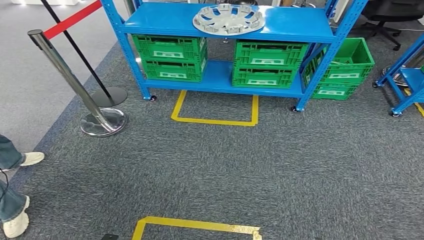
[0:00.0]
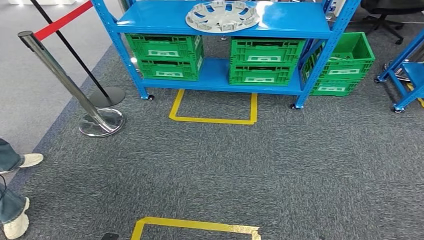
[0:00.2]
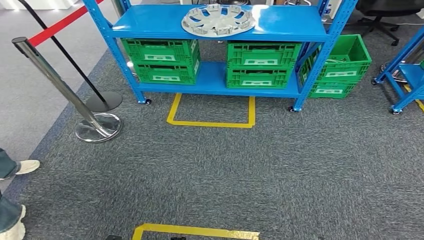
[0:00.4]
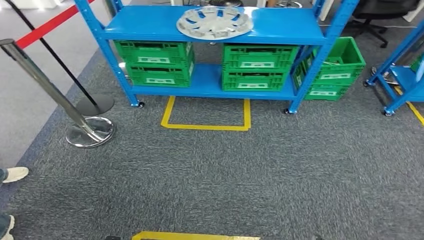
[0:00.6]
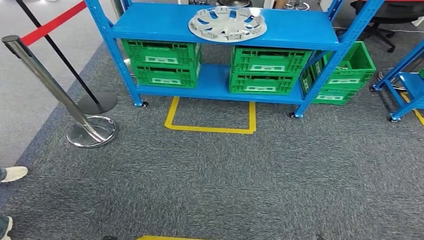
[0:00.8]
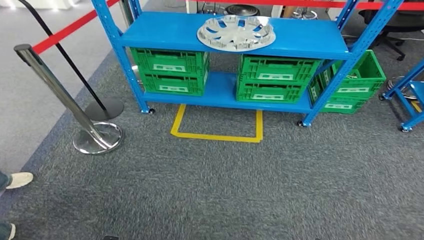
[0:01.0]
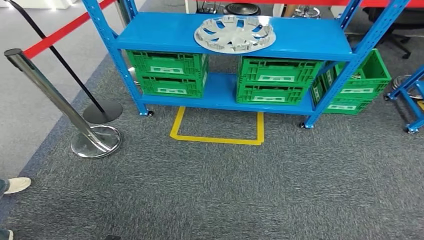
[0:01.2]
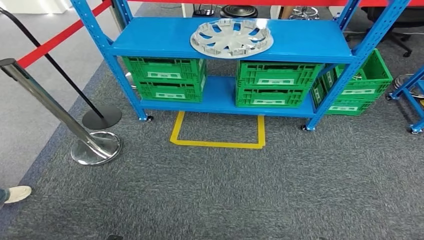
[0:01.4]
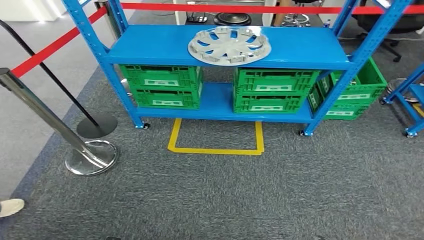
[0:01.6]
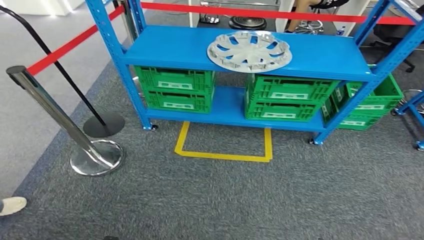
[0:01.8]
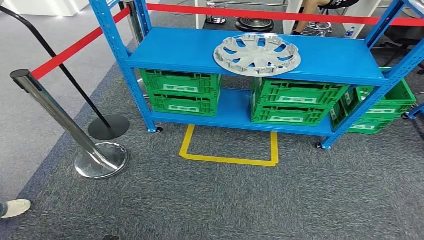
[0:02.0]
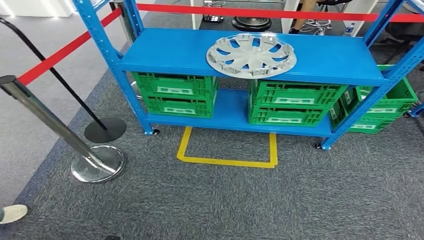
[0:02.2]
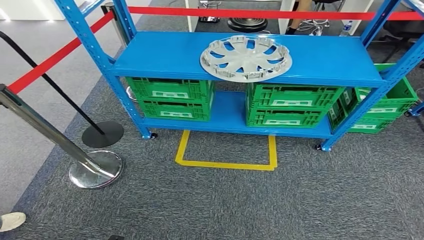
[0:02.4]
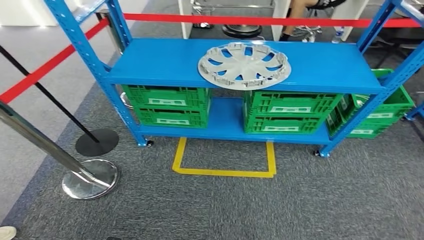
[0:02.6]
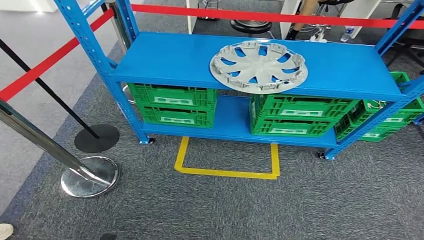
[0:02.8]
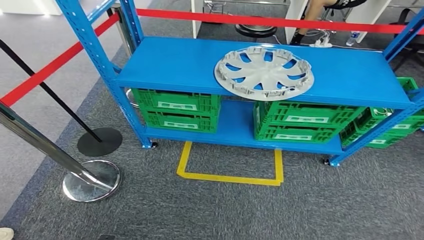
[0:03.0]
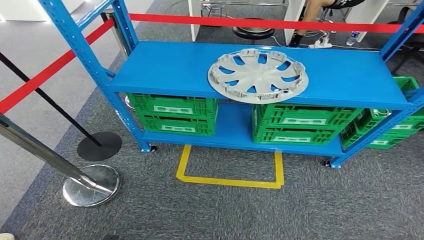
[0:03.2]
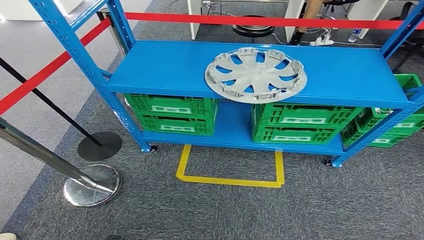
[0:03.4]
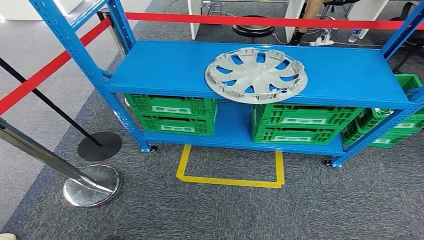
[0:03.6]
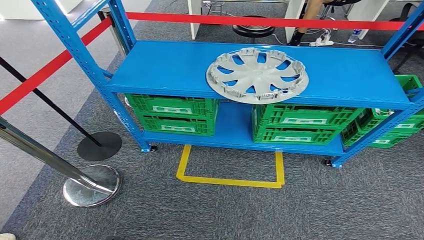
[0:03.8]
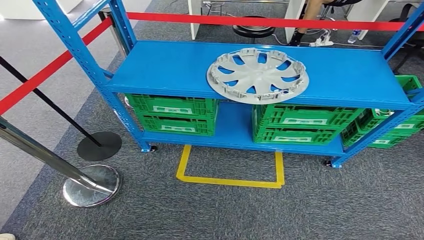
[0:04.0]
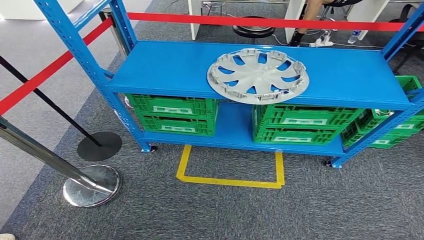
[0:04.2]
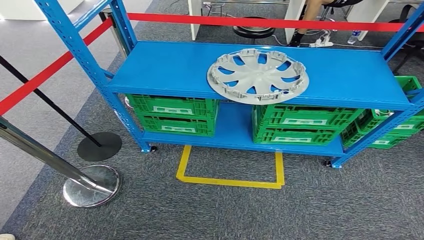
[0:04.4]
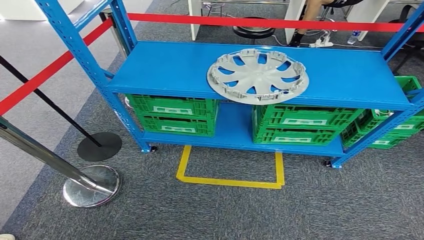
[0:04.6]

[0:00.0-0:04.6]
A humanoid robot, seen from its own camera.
Step, 0:00.0 to 0:04.6: Move to the initial position at the workbench.
